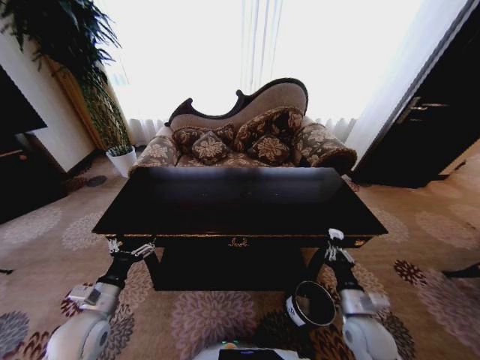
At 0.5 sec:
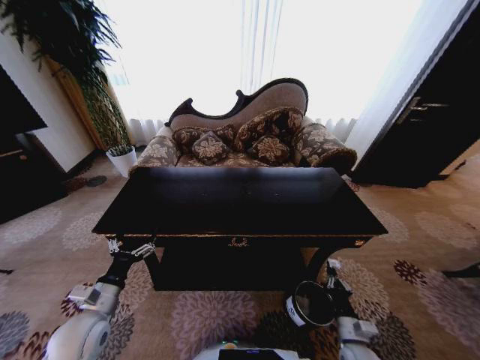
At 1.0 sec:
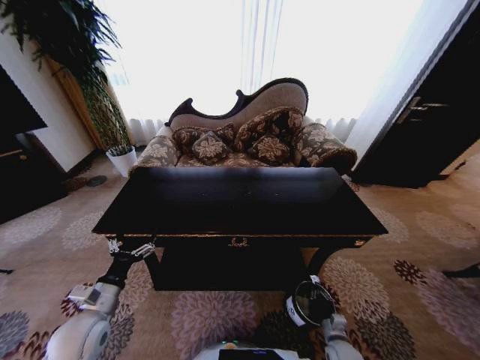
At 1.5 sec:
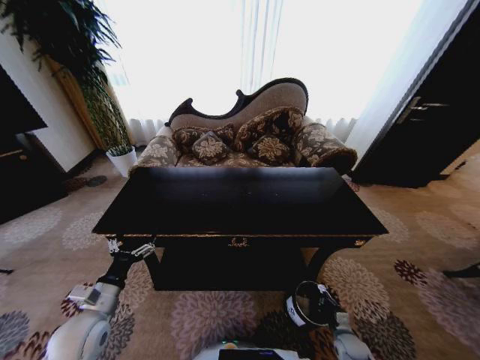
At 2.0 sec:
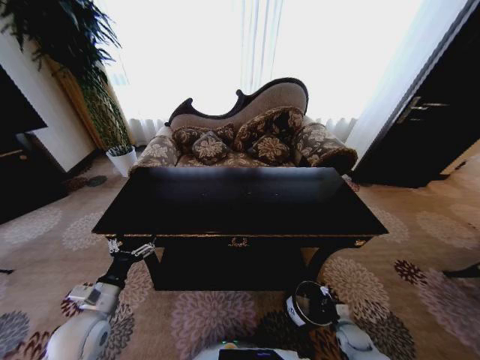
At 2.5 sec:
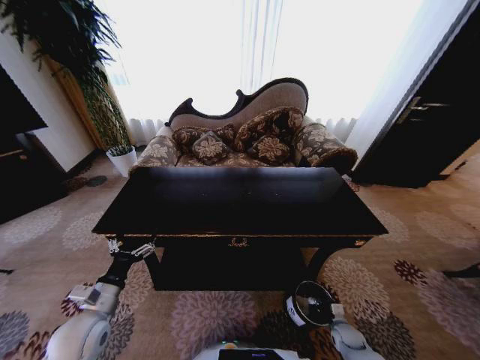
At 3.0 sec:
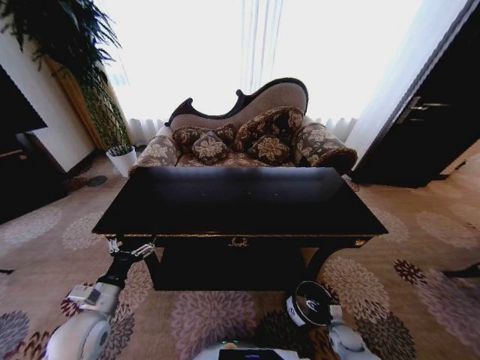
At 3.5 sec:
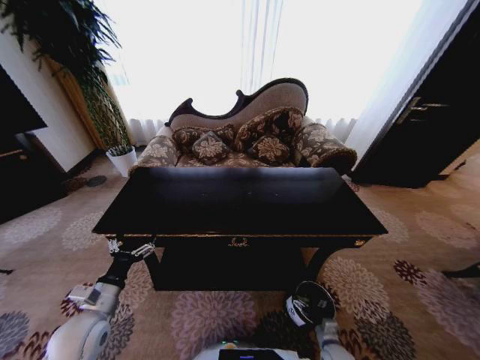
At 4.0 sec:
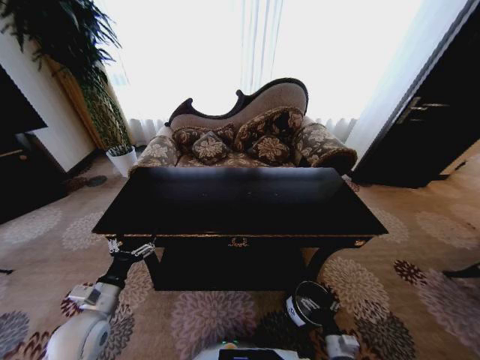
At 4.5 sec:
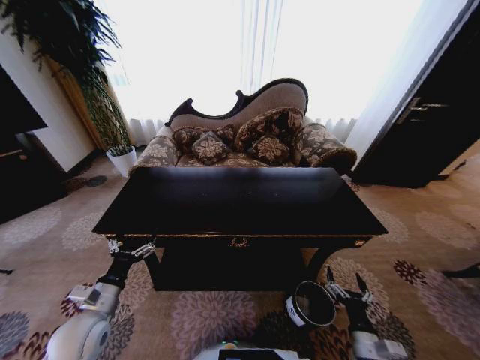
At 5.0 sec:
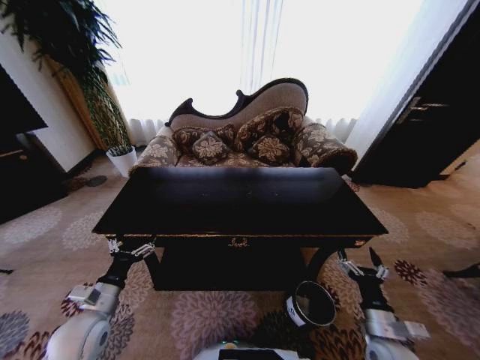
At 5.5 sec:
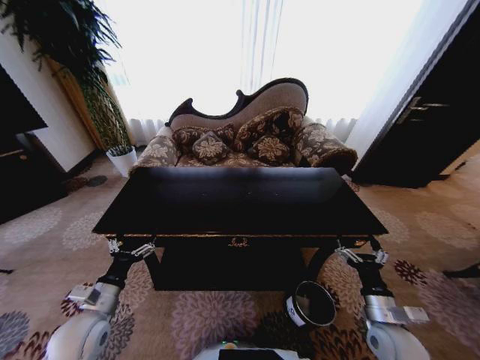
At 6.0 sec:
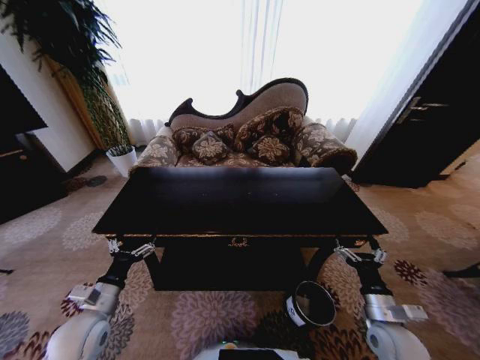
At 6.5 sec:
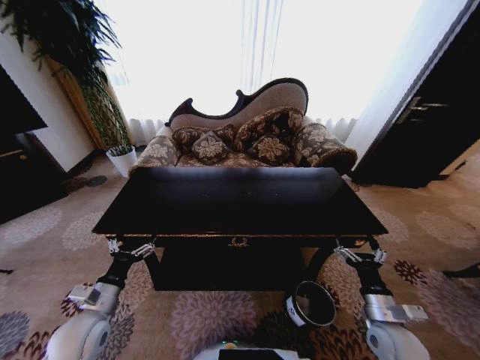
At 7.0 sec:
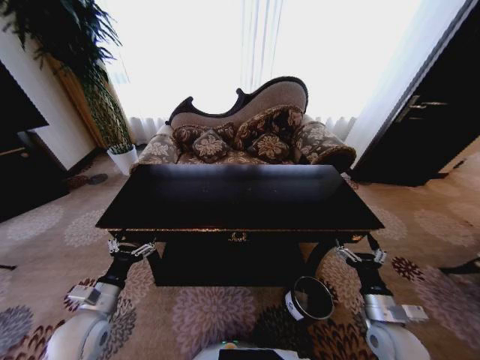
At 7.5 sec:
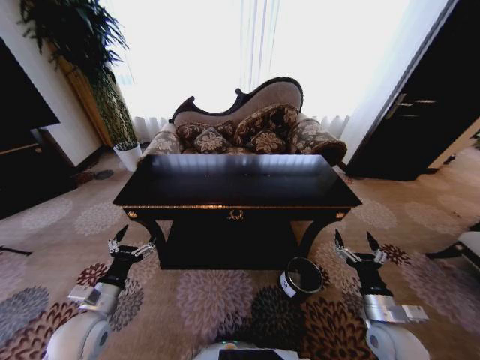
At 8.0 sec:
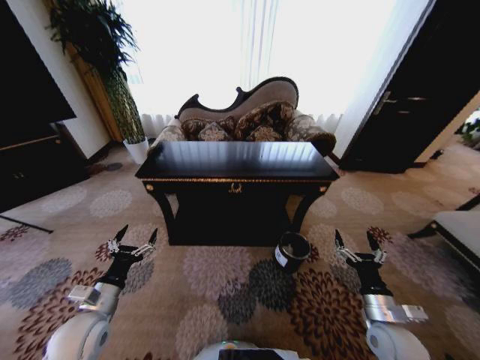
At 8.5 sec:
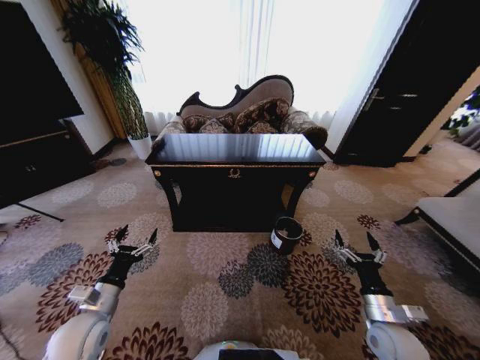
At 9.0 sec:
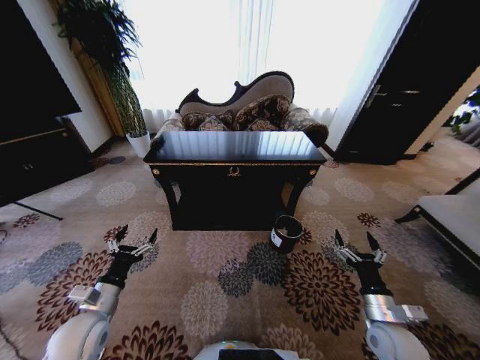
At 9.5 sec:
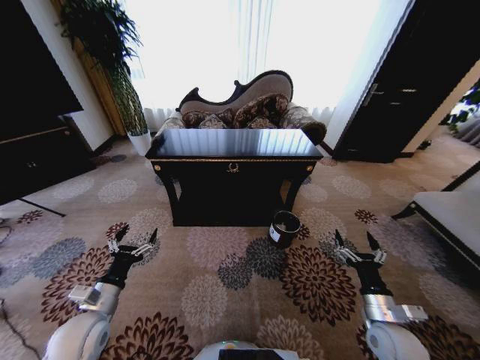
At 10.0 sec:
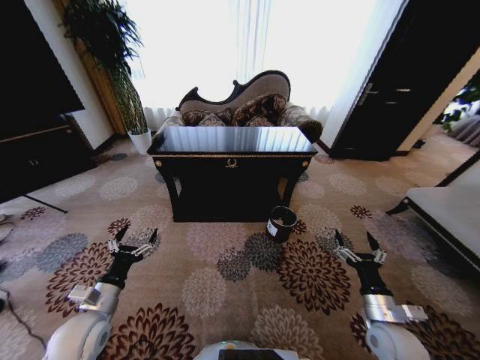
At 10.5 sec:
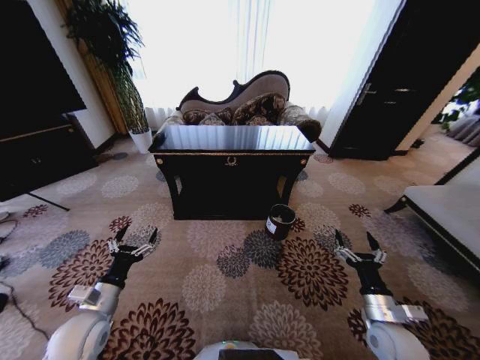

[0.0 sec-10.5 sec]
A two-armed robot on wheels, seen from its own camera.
Task of the whole recording: Move to the front of the table and place the trash on the table into the trash bin.
0.0 sec to 2.0 sec: The right gripper goes about 25 cm downward and to the right.
2.0 sec to 4.0 sec: The right gripper travels backward, to the left and upward by about 15 cm, and opens its fingers.
4.0 sec to 6.5 sec: The right gripper shifts approximately 20 cm upward.

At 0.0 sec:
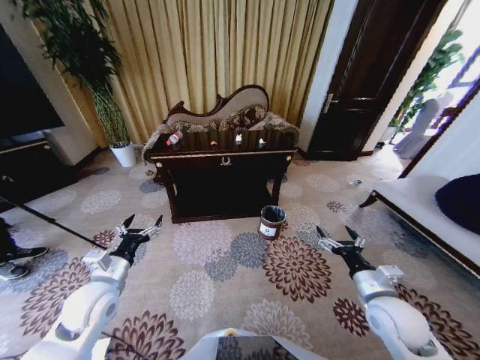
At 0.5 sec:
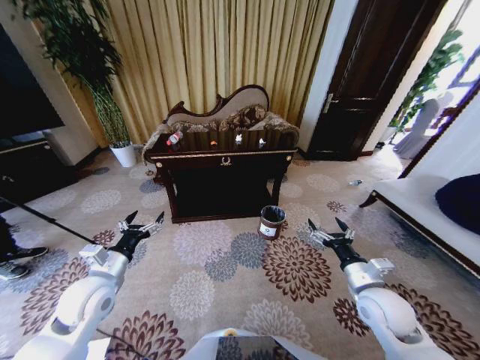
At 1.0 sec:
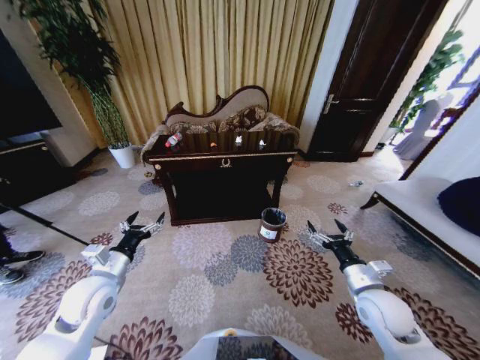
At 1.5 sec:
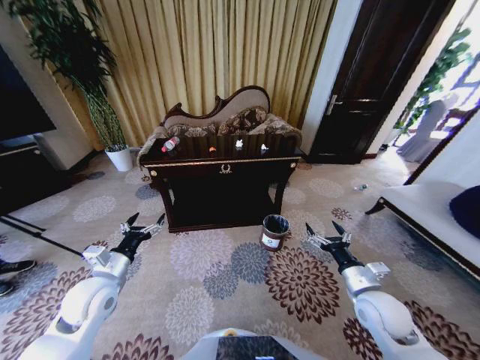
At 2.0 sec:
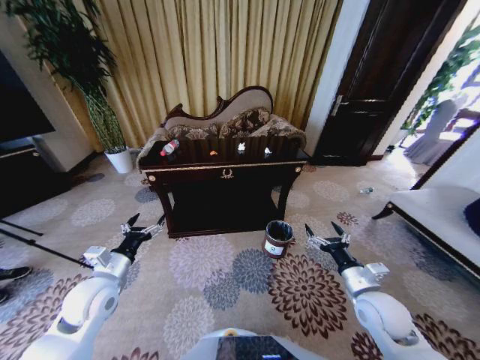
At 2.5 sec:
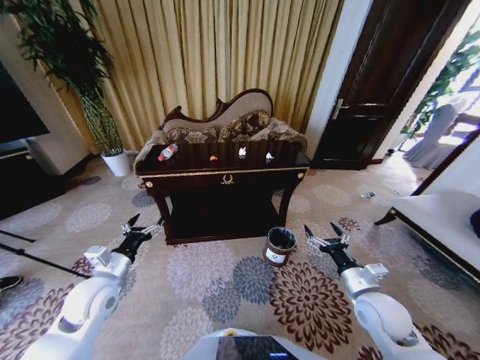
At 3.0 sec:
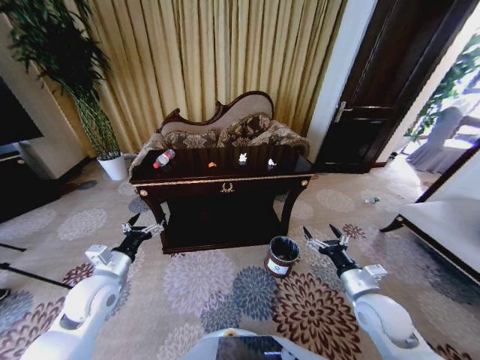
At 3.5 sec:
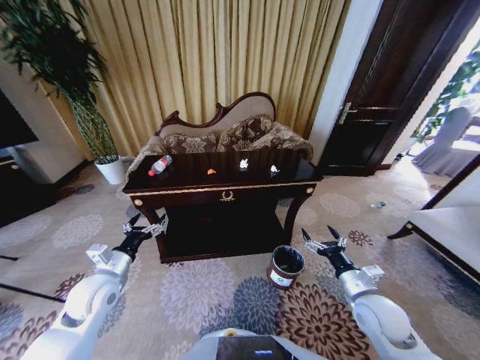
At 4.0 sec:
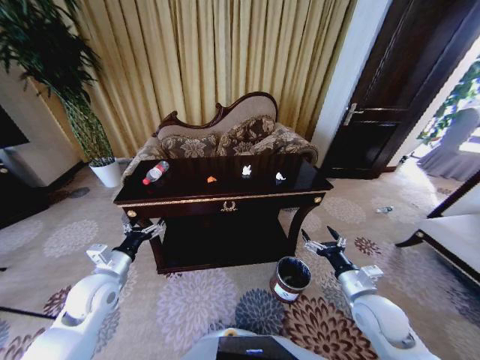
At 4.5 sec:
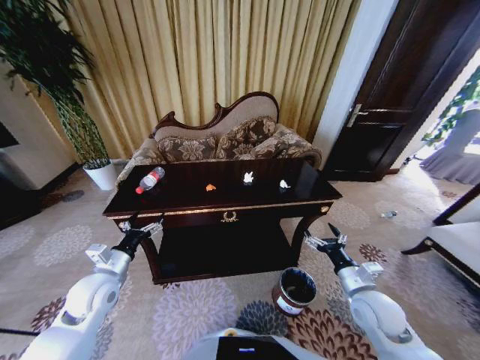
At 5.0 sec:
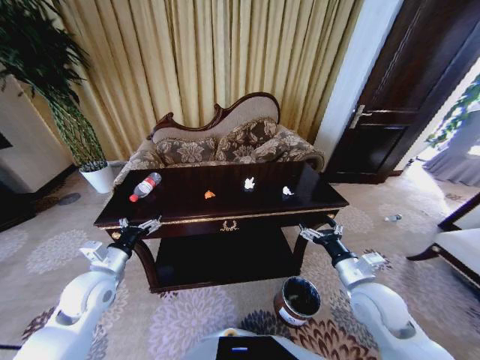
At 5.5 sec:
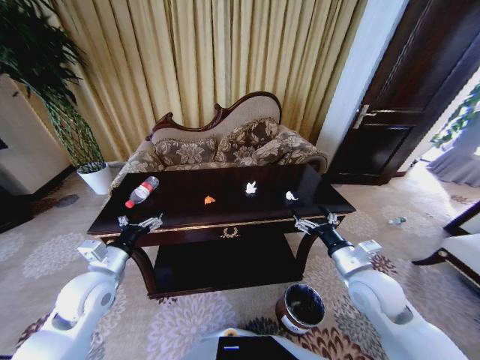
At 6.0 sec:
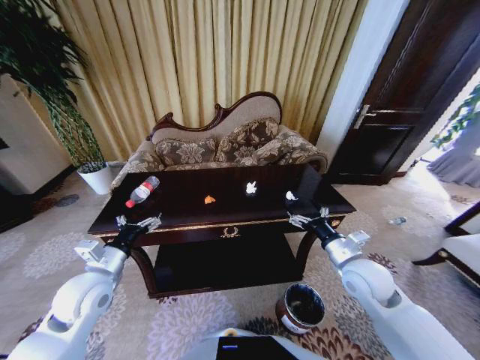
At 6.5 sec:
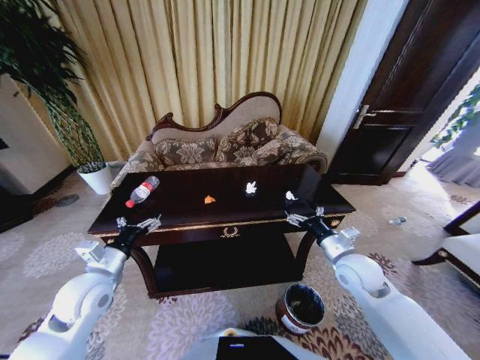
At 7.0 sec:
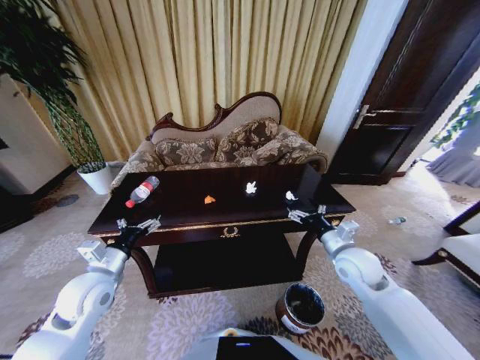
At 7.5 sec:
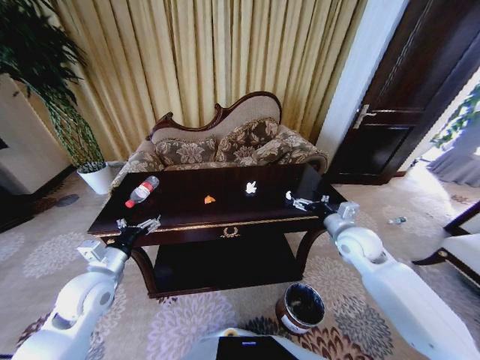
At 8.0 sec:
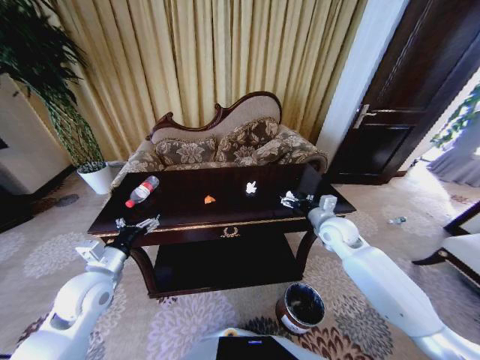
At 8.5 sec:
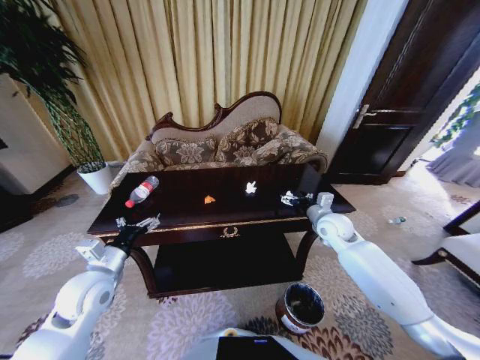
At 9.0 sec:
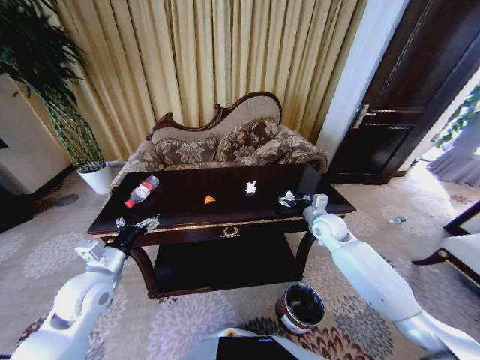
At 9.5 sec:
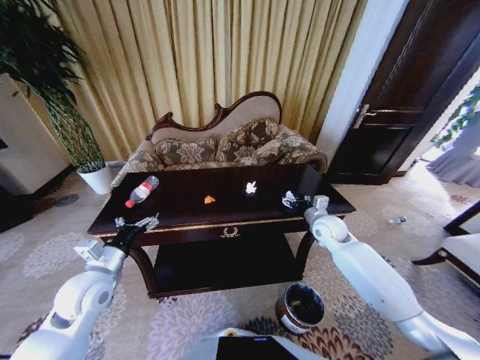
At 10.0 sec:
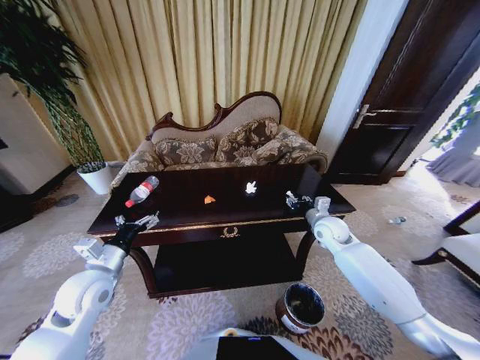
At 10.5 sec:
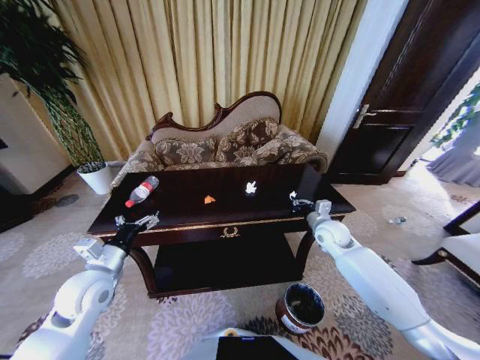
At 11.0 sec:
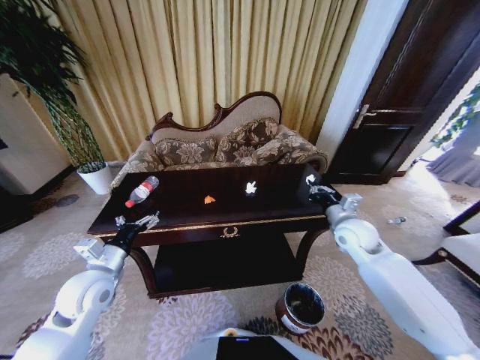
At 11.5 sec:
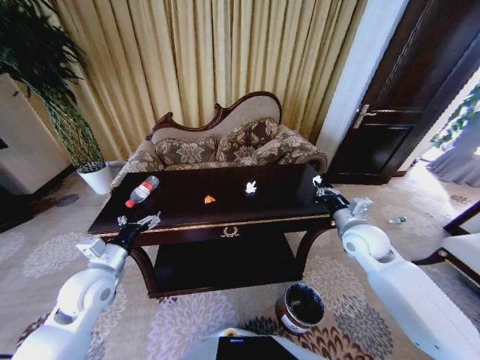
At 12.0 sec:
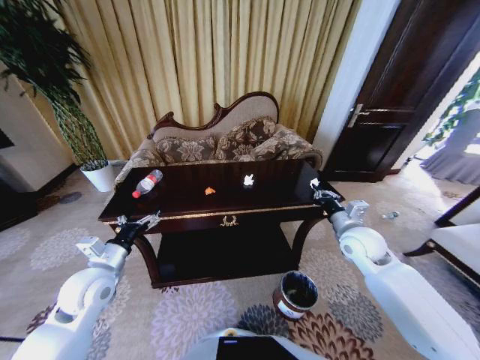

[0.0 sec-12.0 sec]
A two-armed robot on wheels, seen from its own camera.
Task of the whole recording: Move to the front of the table and place the trash on the table into the trash bin.
4.0 sec to 6.0 sec: The right gripper goes approximately 10 cm forward and upward.
6.0 sec to 8.0 sec: The right gripper shifts roughly 15 cm forward.
8.0 sec to 10.0 sec: The right gripper closes up.
10.0 sec to 12.0 sec: The right gripper goes approximately 10 cm backward and upward, and closes.

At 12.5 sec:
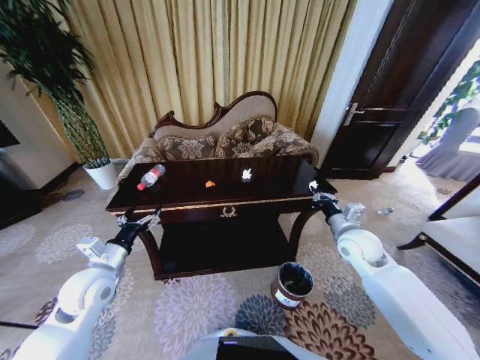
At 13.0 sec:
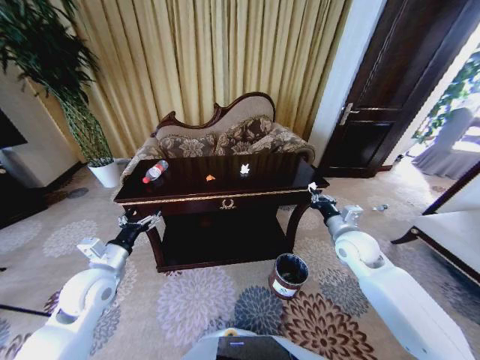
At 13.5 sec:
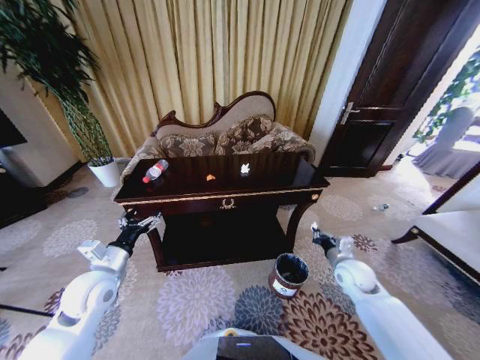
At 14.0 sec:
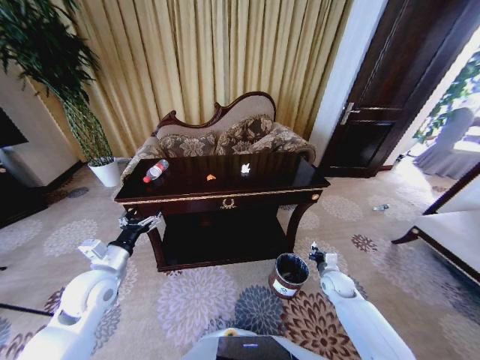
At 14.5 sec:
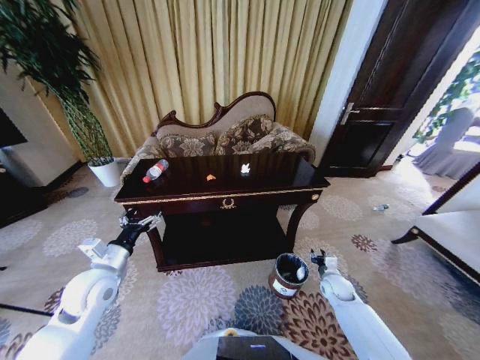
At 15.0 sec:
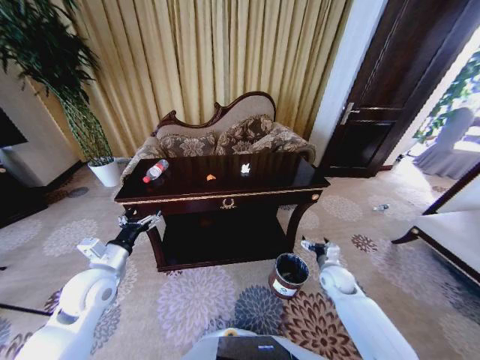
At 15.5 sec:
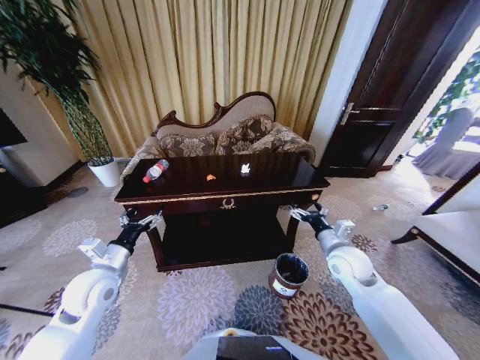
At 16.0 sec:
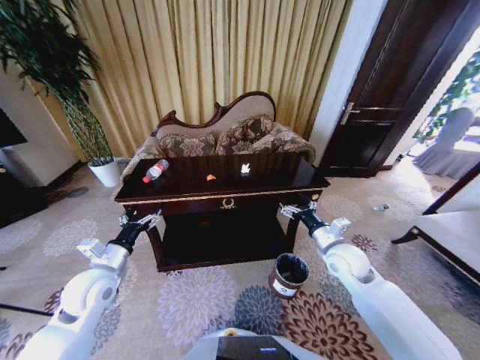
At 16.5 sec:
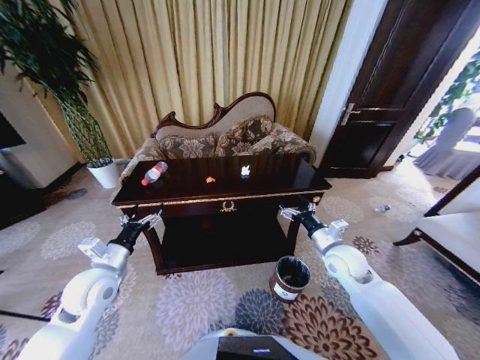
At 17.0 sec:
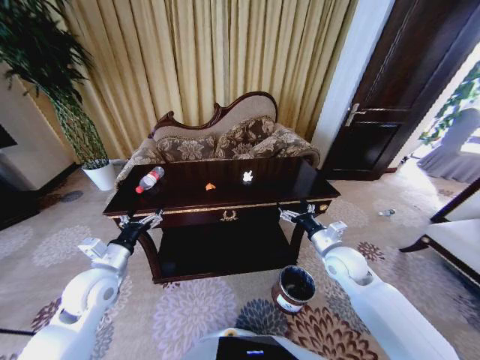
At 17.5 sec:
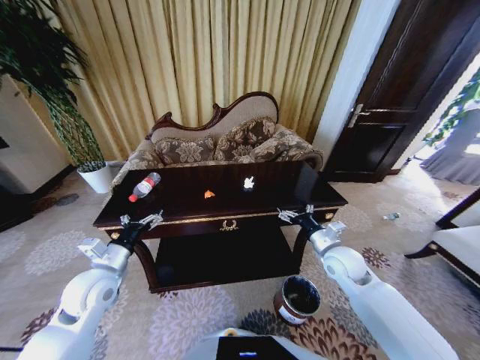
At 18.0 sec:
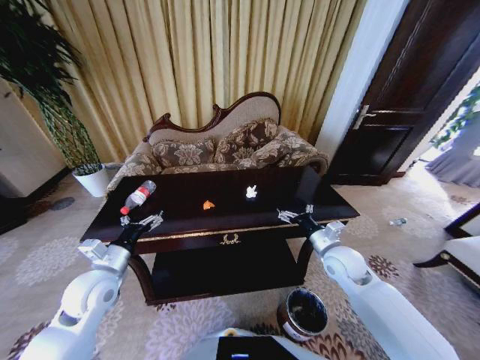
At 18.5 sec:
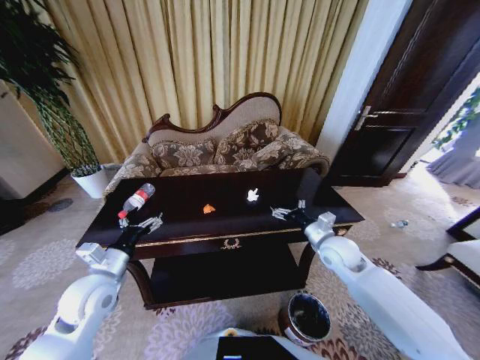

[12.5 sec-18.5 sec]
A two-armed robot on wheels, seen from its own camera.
Task of the whole recording: Move to the front of the table and place the trash on the table into the trash bin.
12.5 sec to 14.5 sec: The right gripper is displaced downward by some 25 cm, and opens.
14.5 sec to 16.5 sec: The right gripper travels upward by approximately 20 cm, and opens.
